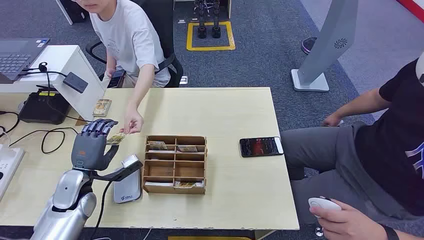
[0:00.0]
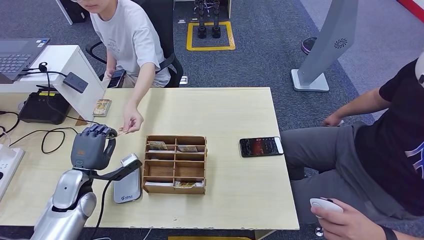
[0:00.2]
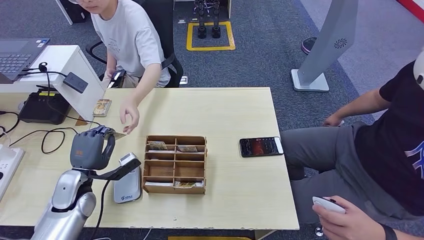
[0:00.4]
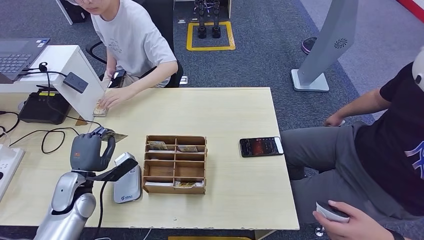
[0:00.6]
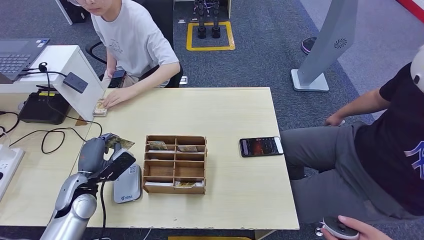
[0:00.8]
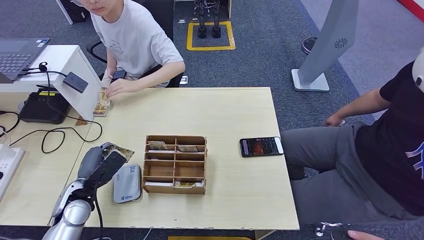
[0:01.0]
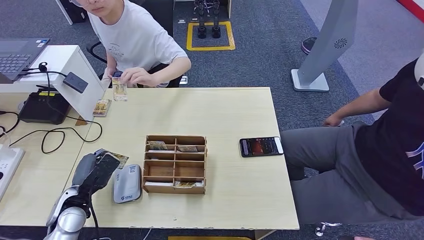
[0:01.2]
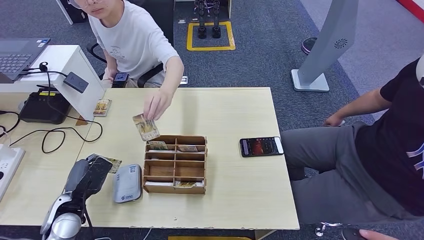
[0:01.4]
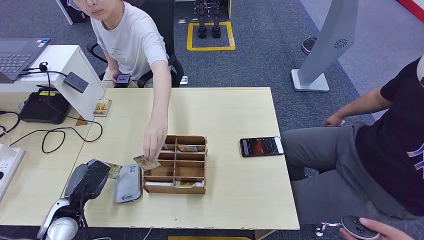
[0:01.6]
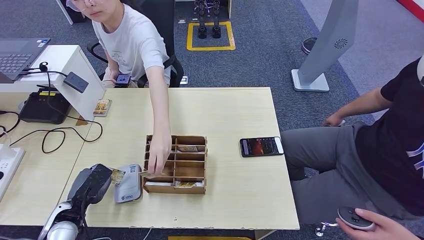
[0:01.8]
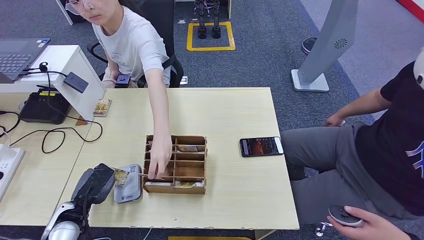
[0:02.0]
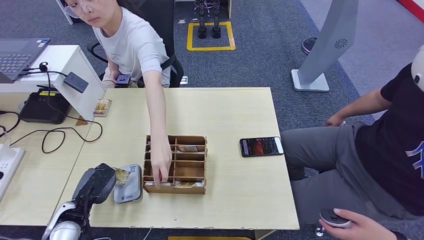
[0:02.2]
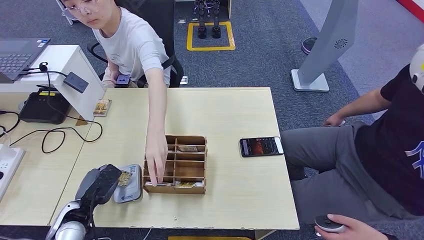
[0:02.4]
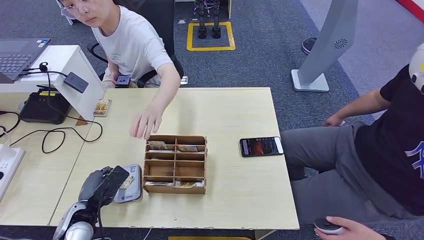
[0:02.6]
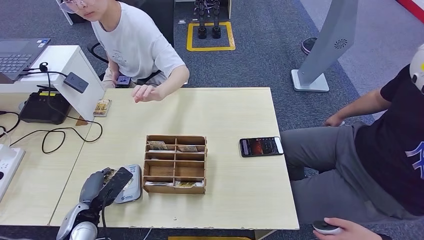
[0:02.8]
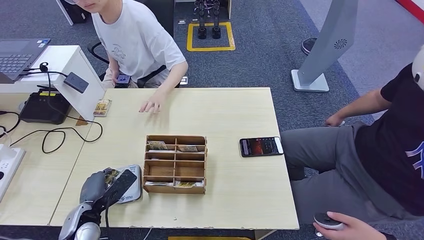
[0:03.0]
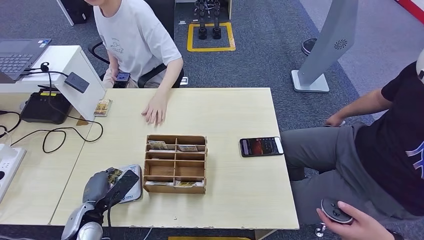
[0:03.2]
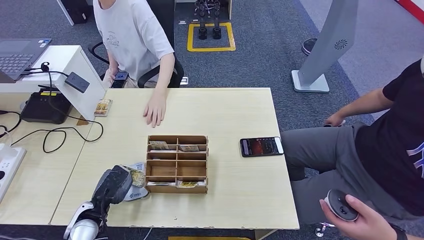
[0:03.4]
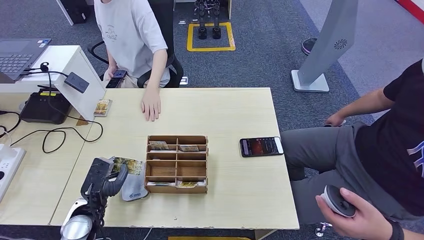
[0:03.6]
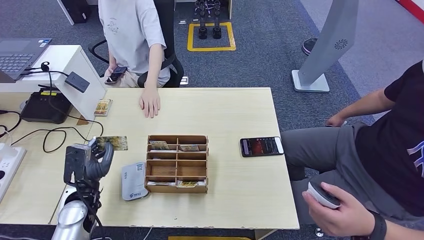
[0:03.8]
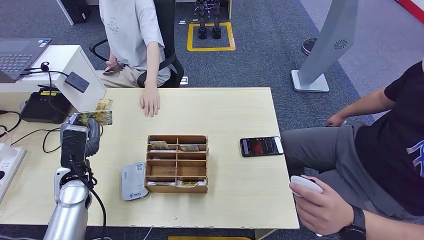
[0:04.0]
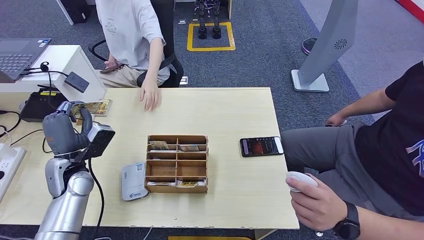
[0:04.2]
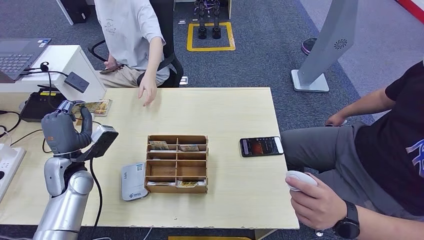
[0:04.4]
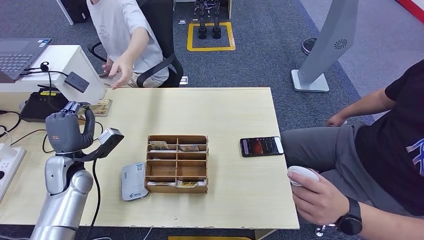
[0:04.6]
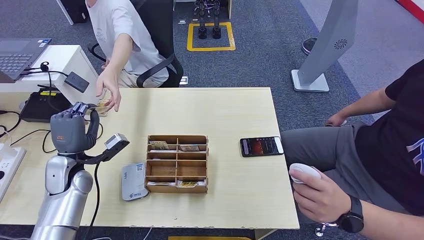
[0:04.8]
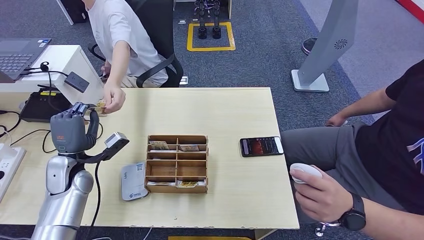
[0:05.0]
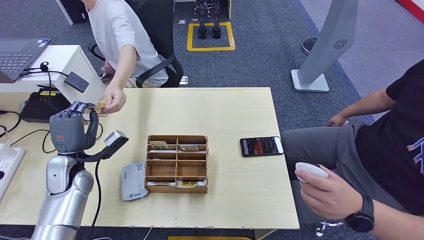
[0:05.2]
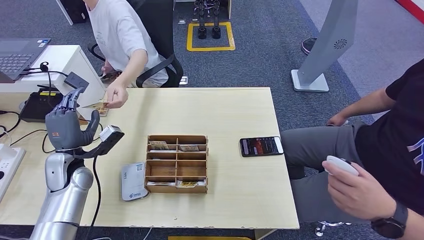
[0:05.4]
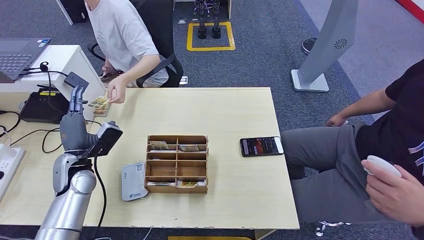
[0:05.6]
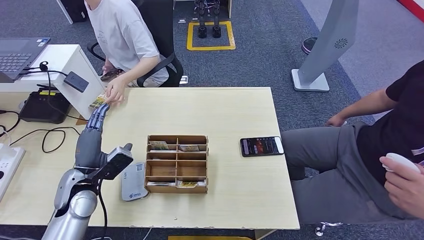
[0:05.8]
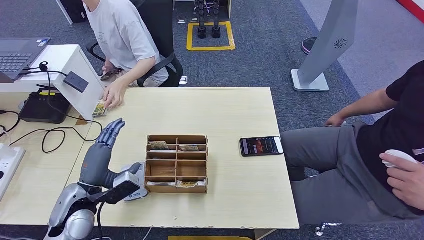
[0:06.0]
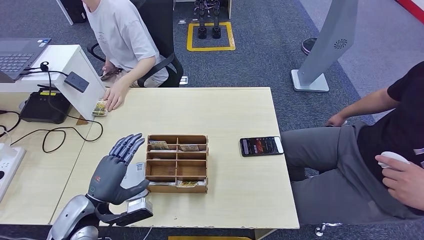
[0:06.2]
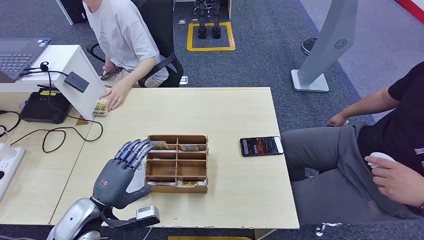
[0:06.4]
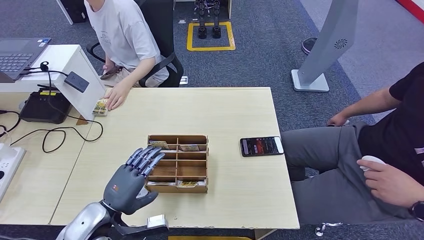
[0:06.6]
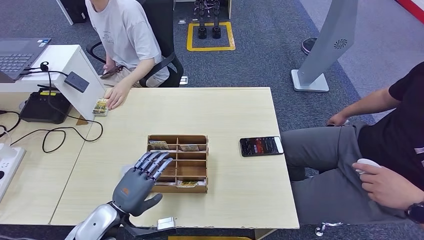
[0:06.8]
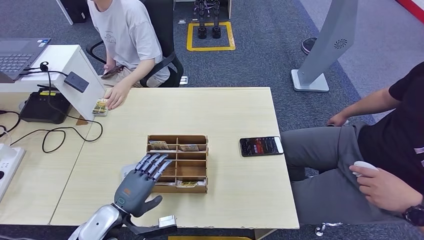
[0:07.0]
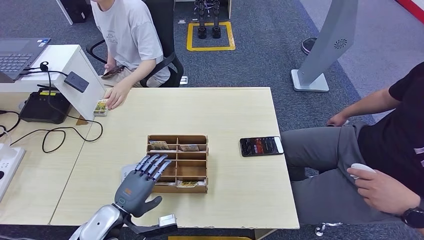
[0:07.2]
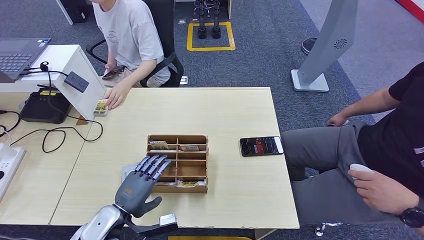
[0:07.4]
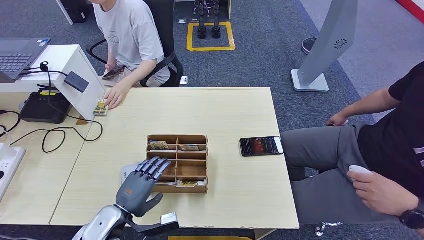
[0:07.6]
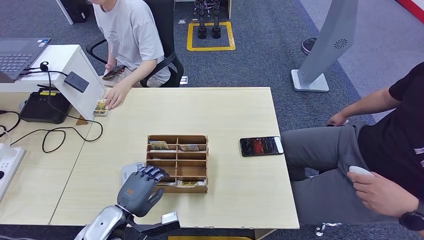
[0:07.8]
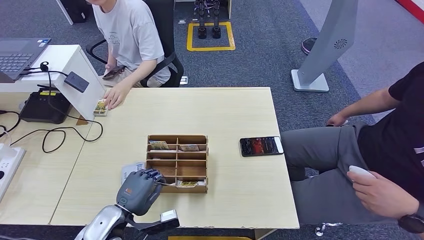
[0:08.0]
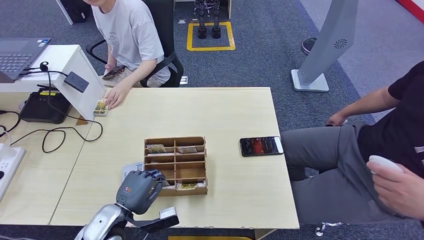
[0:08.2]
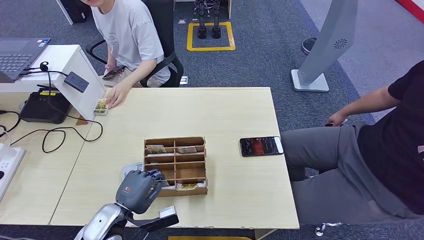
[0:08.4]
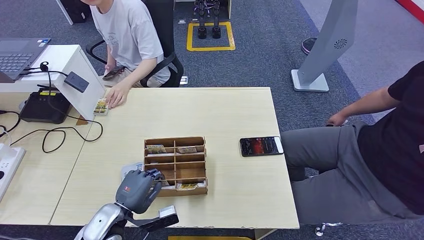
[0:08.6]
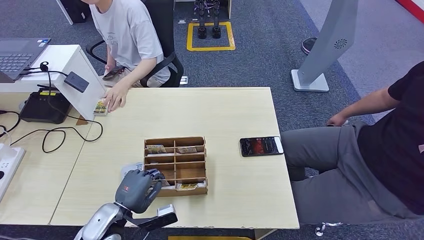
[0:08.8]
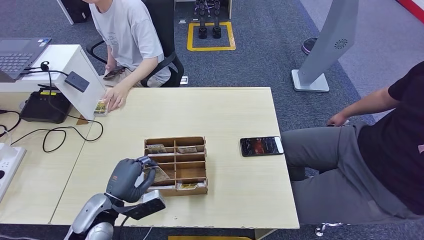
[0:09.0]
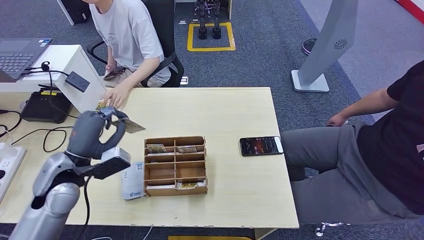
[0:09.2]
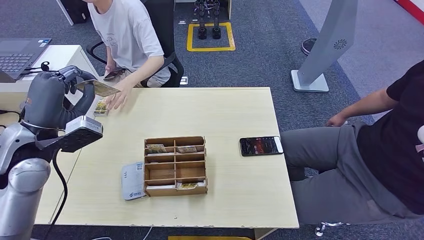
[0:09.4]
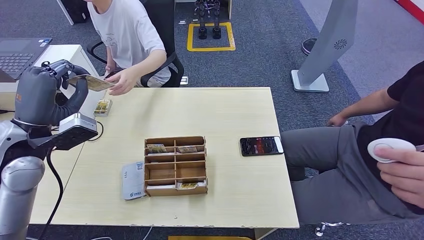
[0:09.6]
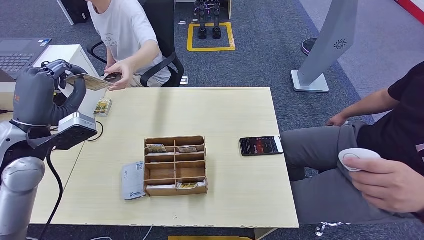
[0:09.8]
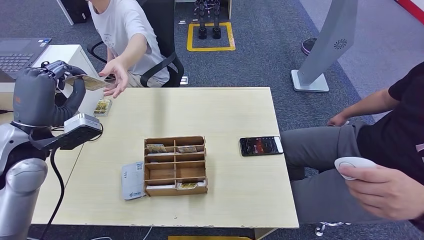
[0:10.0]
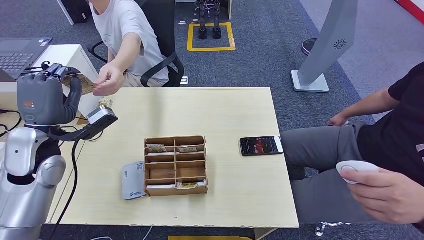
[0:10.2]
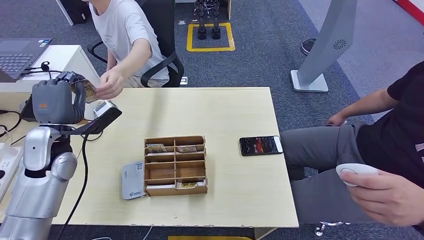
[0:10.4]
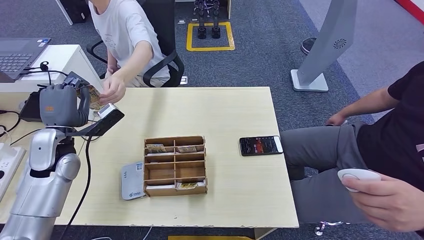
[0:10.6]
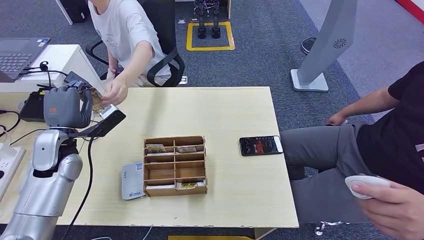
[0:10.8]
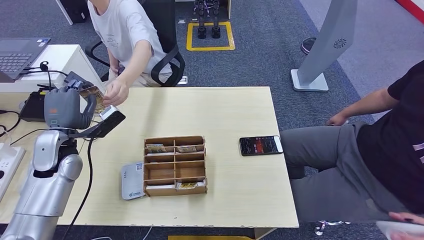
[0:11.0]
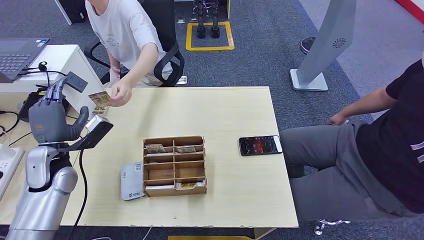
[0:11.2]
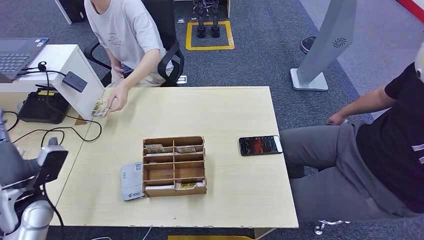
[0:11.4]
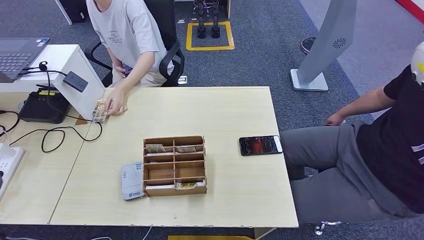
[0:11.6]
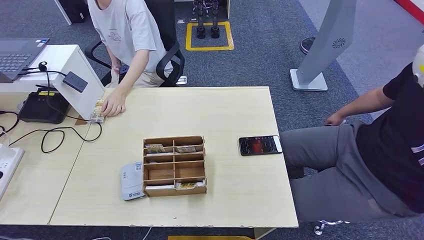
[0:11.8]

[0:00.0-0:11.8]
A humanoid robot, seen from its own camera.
Step, 0:00.0 to 0:01.2: Take the ID card from the person's hand.
Step, 0:01.4 to 0:03.6: Place the ID card on the card reader.
Step, 0:03.8 to 0:05.8: Hand the ID card to the person.
Step, 0:06.0 to 0:08.8: Pick up the room key from the key card box.
Step, 0:09.0 to 0:11.8: Hand the room key to the person.
0:01.4 to 0:03.0: The hands move only a little.
0:06.0 to 0:07.4: The left hand heads downward and to the right, covering roughly 10 cm.
0:07.4 to 0:08.8: The hands move only a little.
